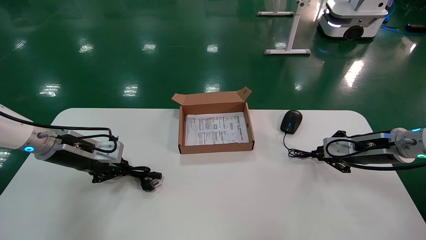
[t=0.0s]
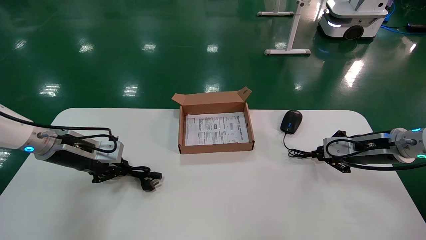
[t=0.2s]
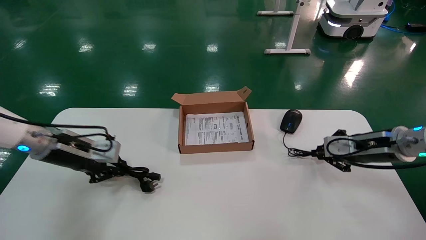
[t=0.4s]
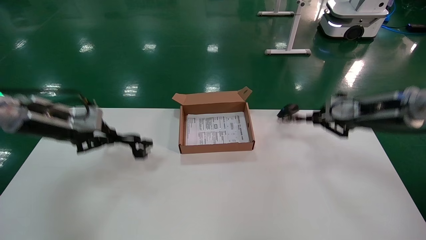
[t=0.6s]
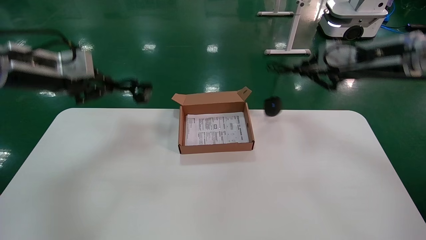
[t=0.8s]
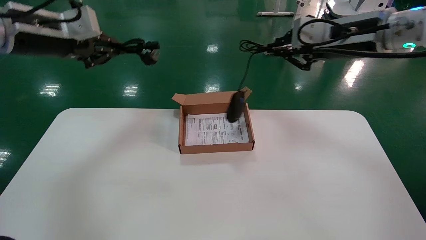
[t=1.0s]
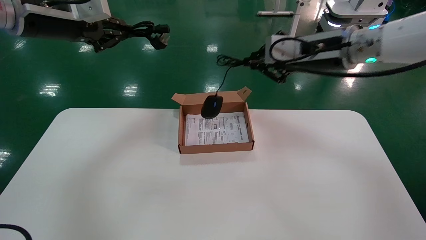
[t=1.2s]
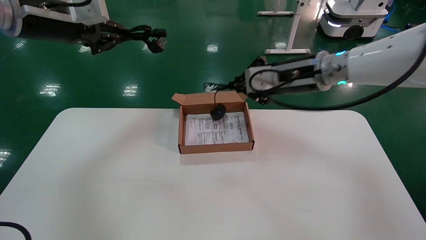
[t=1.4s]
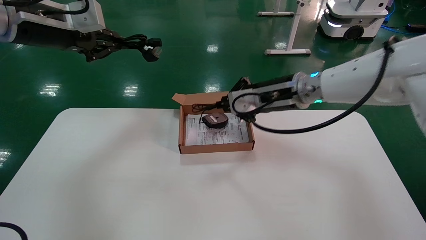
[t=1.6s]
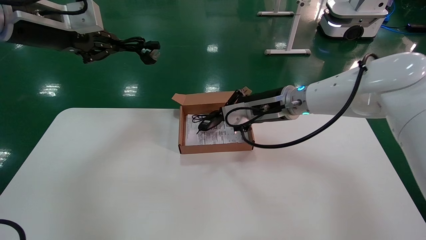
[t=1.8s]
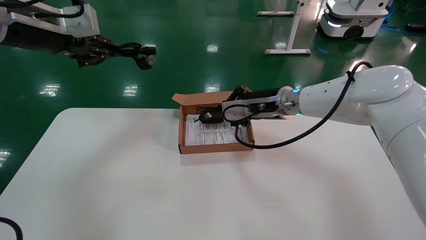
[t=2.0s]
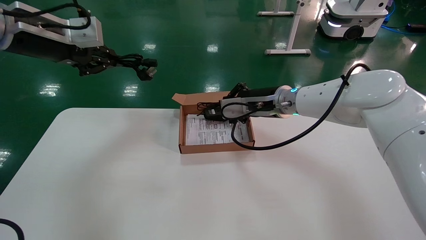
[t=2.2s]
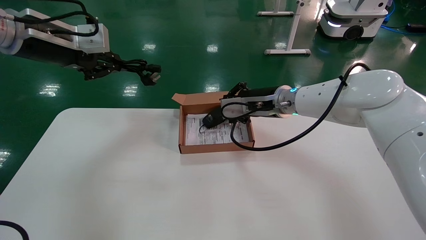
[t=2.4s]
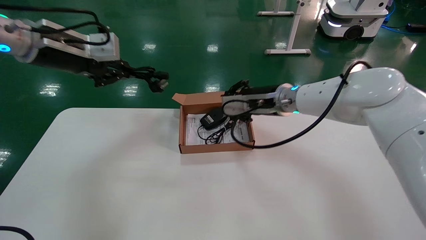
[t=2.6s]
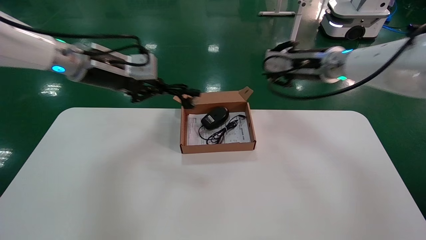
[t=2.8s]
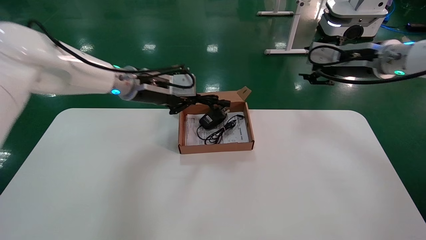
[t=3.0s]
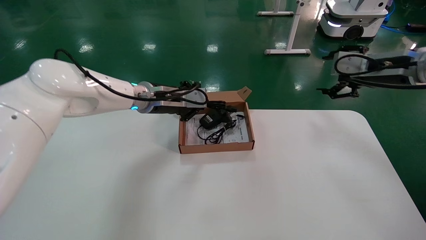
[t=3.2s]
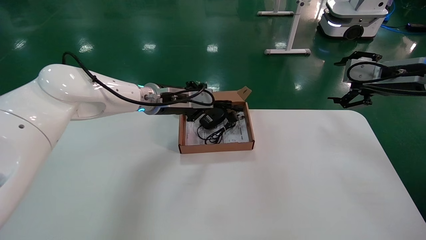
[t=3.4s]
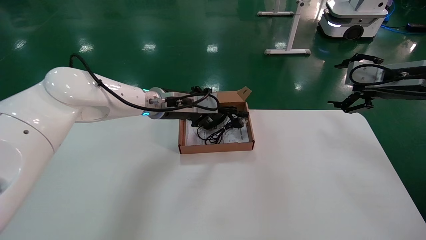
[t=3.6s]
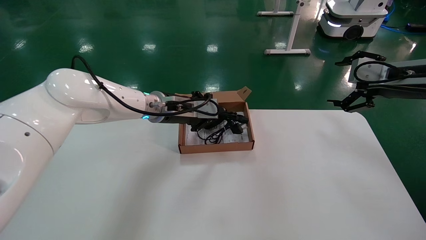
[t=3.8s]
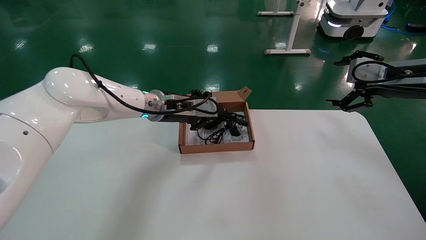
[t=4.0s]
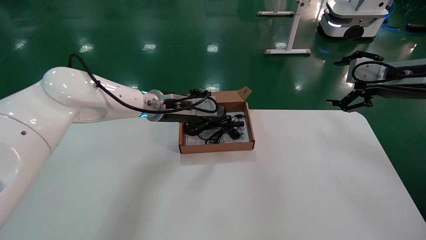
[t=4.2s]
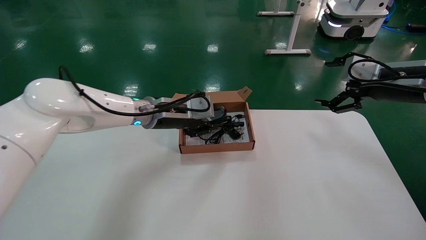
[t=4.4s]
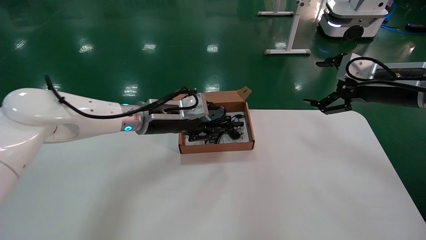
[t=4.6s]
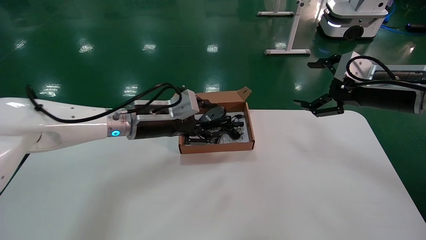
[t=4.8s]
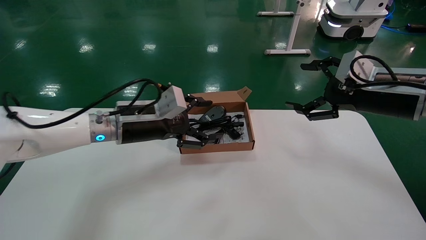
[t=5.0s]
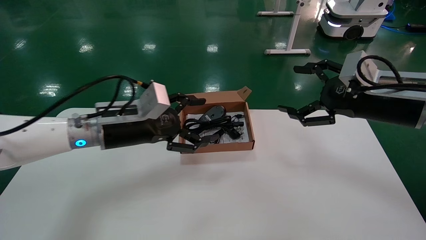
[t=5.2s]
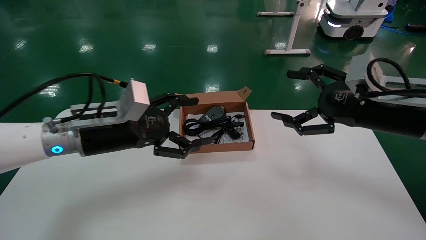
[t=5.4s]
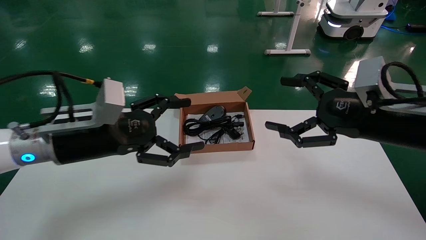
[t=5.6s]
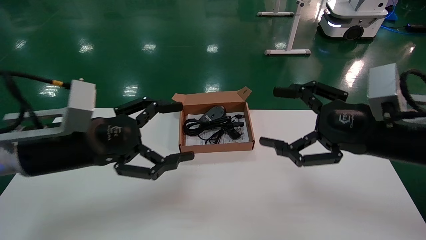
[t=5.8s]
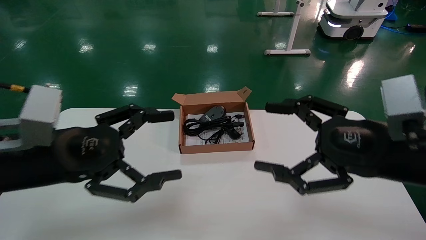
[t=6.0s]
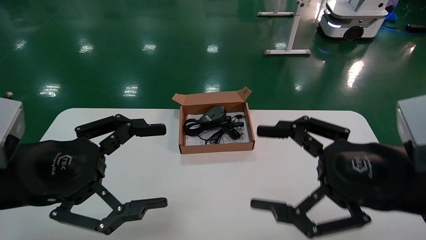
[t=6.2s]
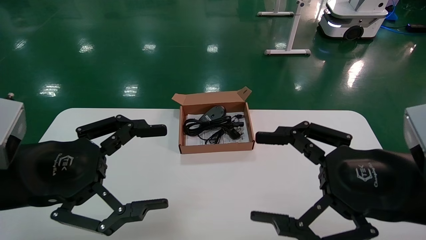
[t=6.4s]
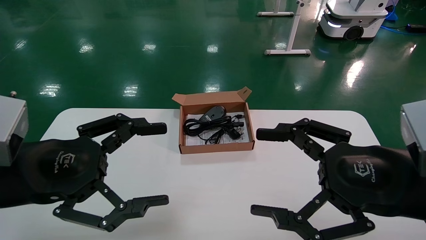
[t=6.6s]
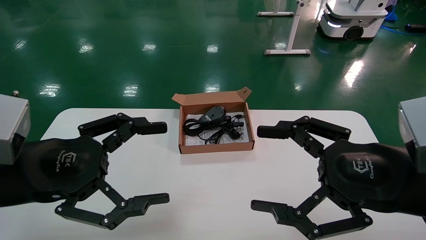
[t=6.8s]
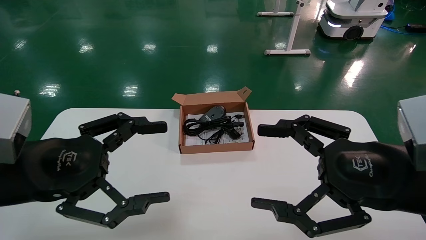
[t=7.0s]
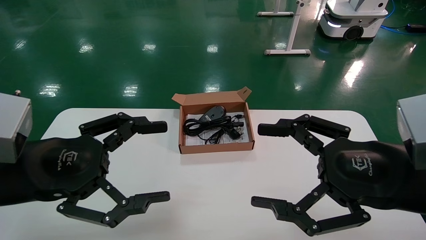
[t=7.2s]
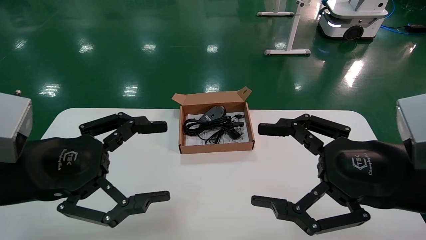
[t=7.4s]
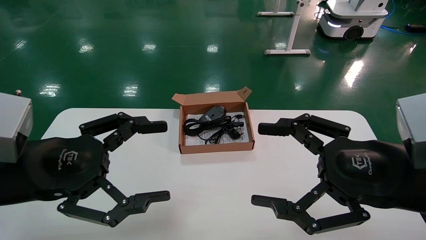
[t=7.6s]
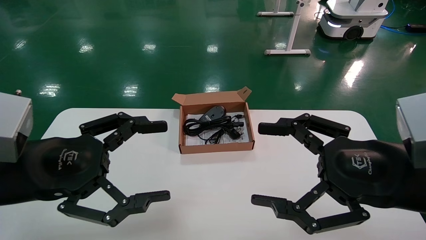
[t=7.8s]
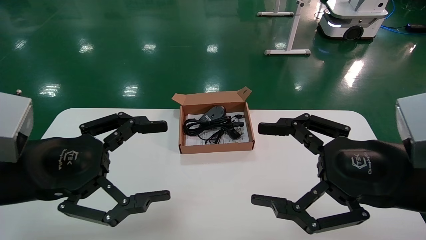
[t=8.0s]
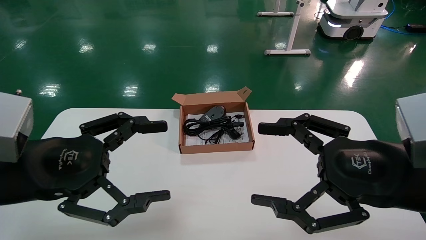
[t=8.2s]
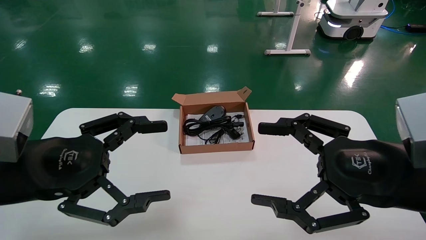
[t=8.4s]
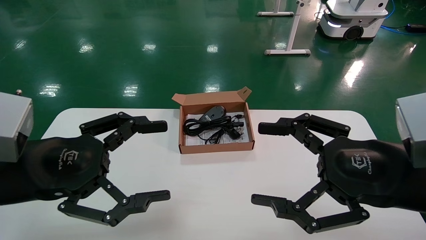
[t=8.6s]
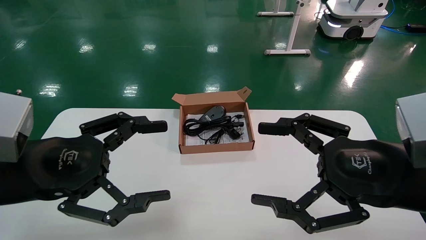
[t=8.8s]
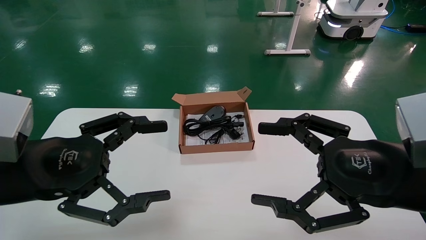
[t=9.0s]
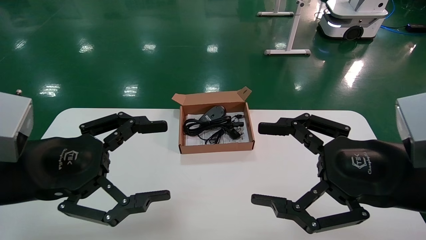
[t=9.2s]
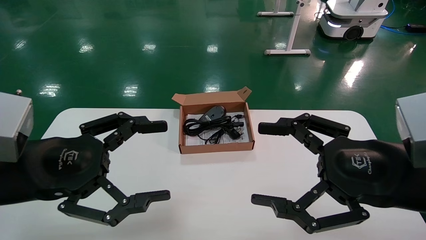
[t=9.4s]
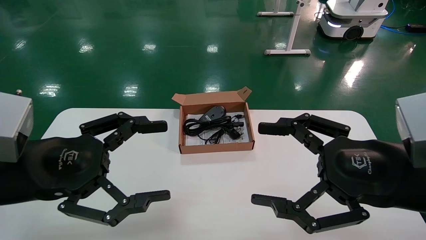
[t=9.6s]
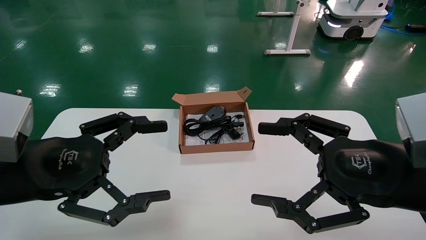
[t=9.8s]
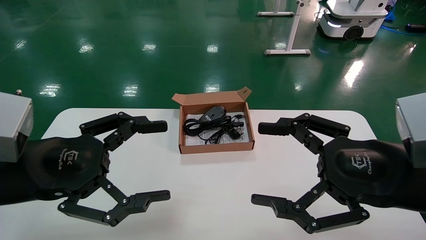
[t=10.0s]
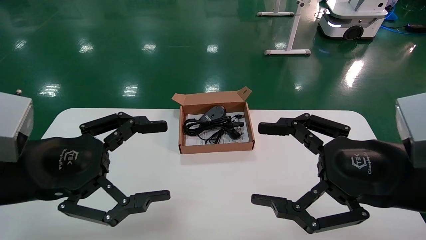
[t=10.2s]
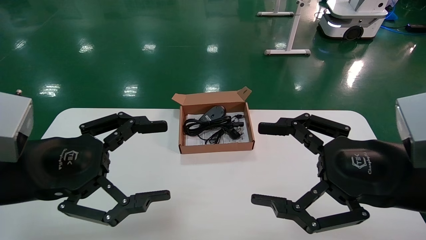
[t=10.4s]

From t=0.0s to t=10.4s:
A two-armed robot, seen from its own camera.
Step, from t=0.0s to t=4.4s: Place the mouse and power cord into the box.
From t=0.0s to t=1.4s: The right gripper heads to the left and upward, covering approximately 25 cm; the left gripper is displaced upward by some 25 cm.
From t=1.4s to t=3.0s: The left gripper heads to the right, downward and forward, covering some 20 cm. The right gripper travels to the right by roughly 10 cm, and opens up.
From t=3.0s to t=4.4s: The left gripper shifts roughly 10 cm downward and to the right. The right gripper is displaced to the right and backward by some 10 cm, and opens its fingers.
From t=4.4s to t=6.0s: The two grippers go about 20 cm backward and to the left. The left gripper opens its fingers.
From t=7.4s to t=10.4s: Both grippers stay about where they are.
